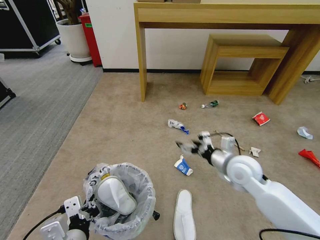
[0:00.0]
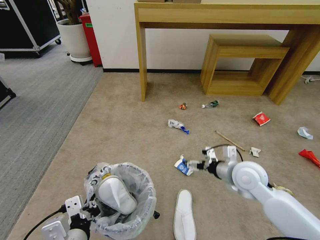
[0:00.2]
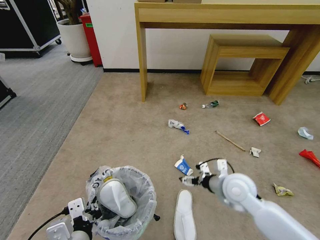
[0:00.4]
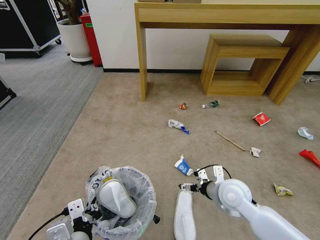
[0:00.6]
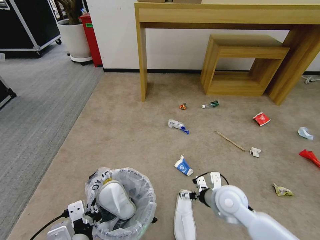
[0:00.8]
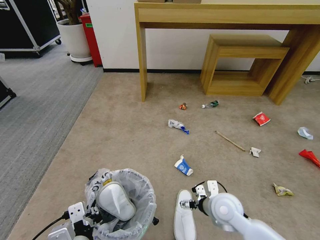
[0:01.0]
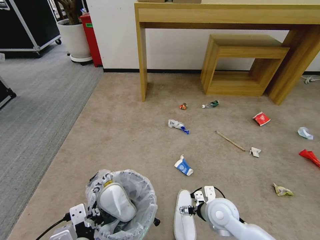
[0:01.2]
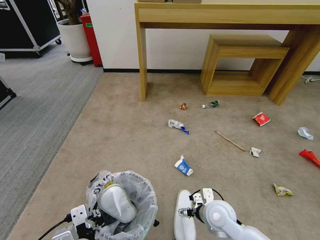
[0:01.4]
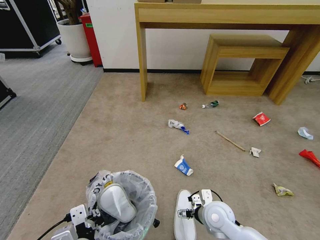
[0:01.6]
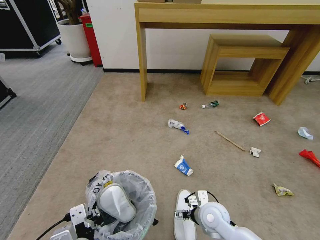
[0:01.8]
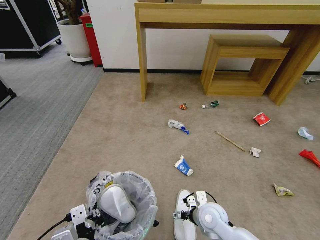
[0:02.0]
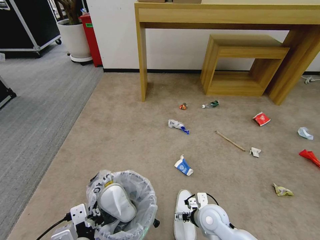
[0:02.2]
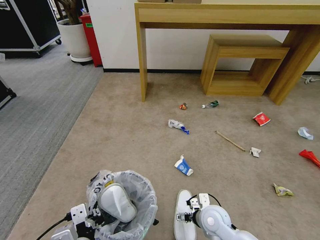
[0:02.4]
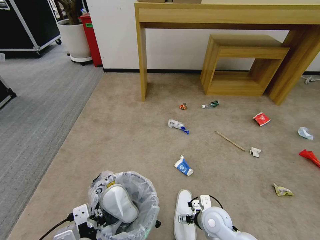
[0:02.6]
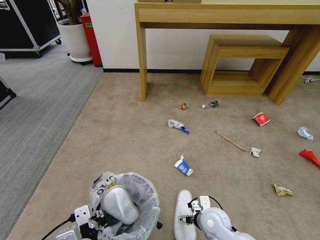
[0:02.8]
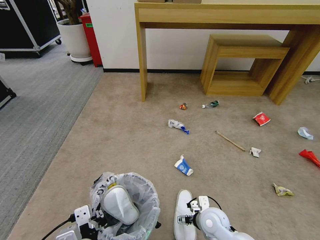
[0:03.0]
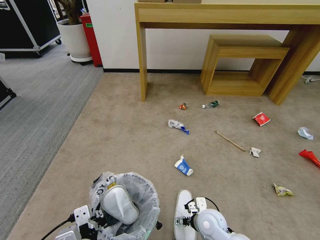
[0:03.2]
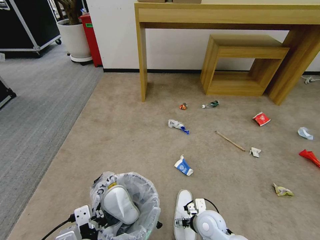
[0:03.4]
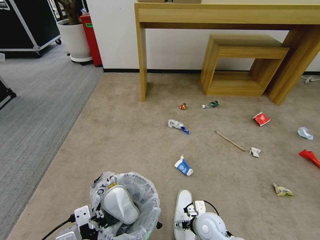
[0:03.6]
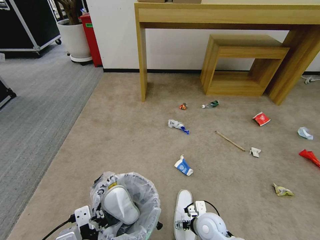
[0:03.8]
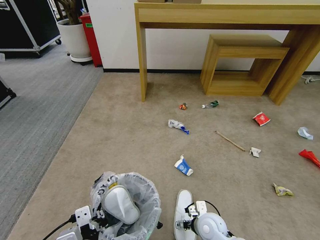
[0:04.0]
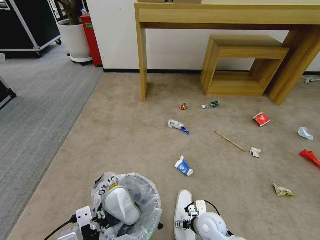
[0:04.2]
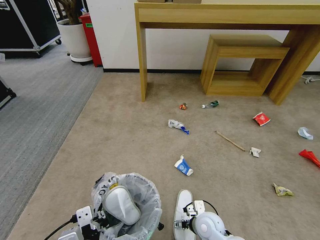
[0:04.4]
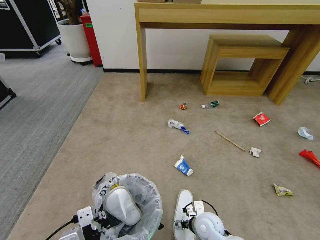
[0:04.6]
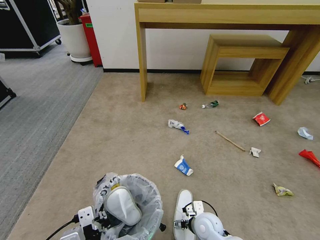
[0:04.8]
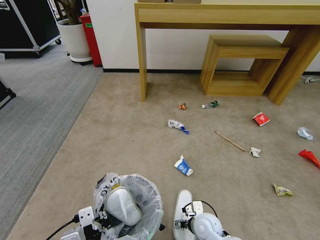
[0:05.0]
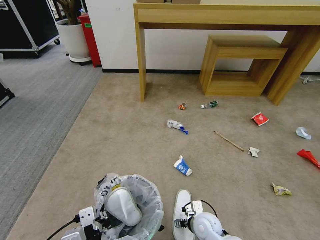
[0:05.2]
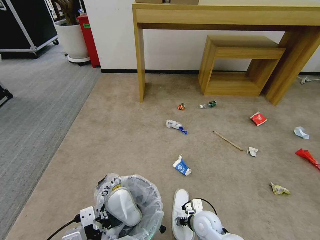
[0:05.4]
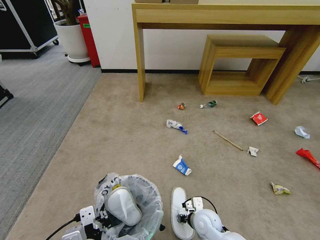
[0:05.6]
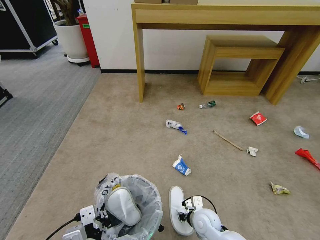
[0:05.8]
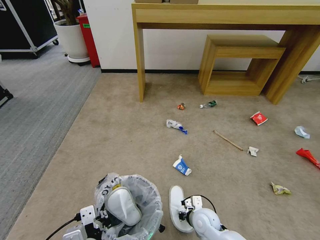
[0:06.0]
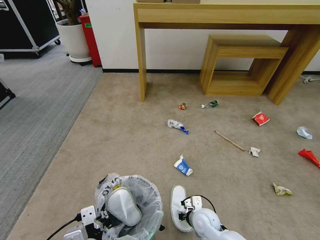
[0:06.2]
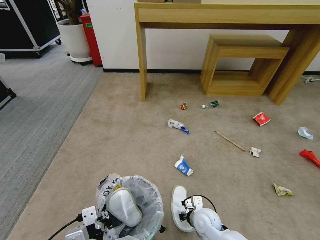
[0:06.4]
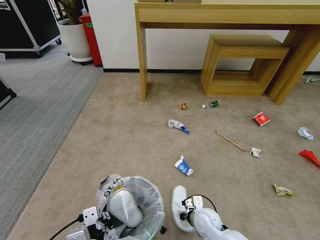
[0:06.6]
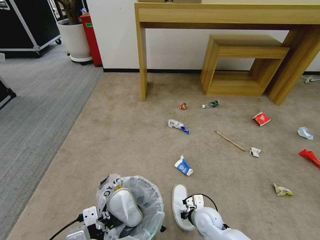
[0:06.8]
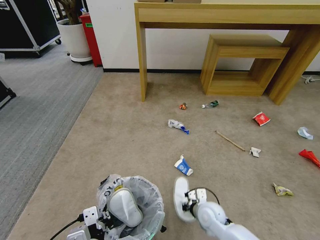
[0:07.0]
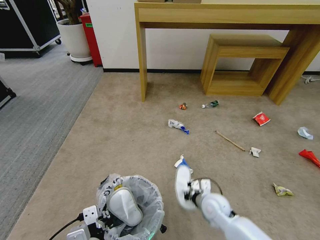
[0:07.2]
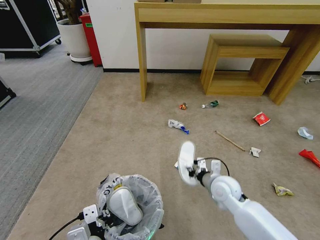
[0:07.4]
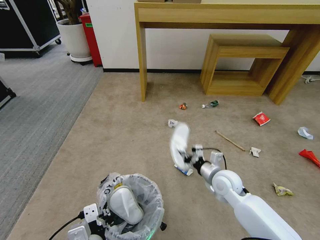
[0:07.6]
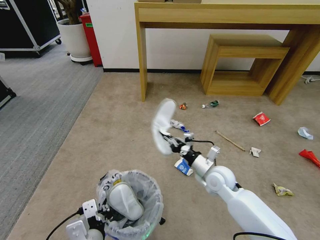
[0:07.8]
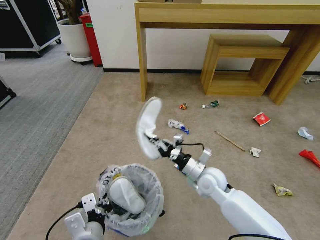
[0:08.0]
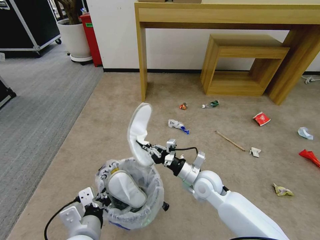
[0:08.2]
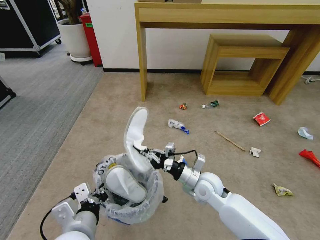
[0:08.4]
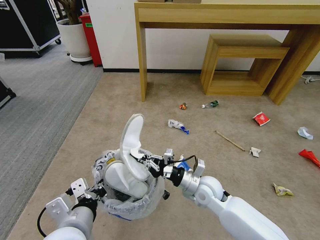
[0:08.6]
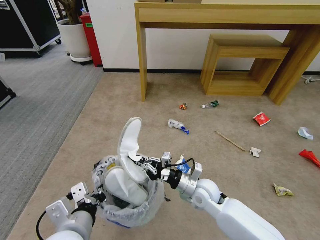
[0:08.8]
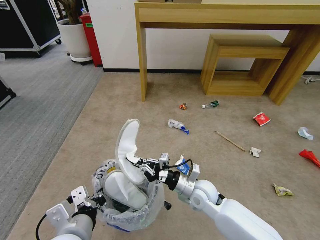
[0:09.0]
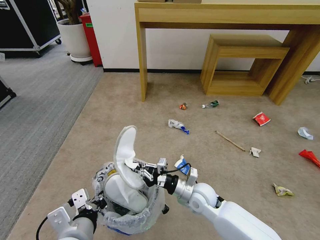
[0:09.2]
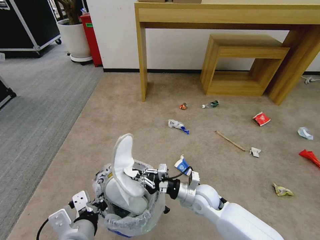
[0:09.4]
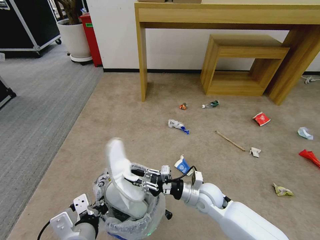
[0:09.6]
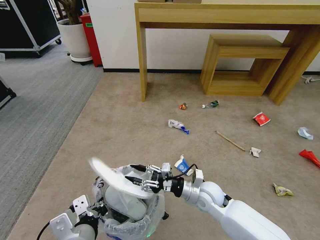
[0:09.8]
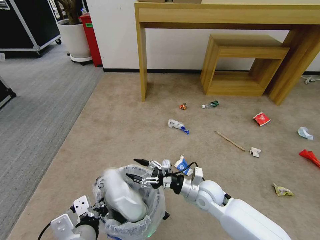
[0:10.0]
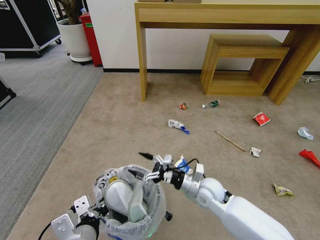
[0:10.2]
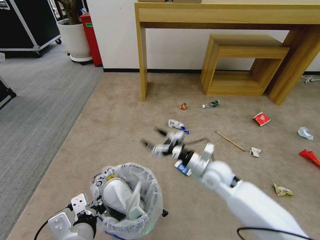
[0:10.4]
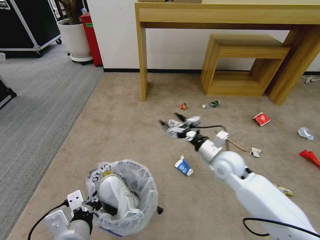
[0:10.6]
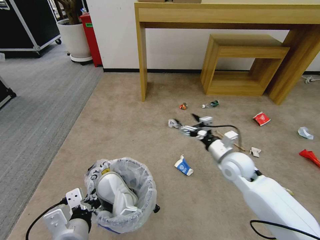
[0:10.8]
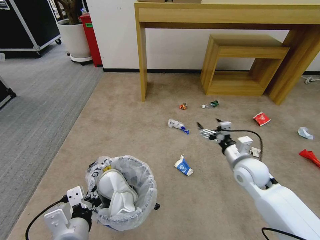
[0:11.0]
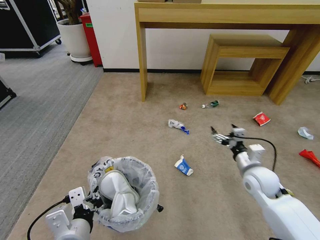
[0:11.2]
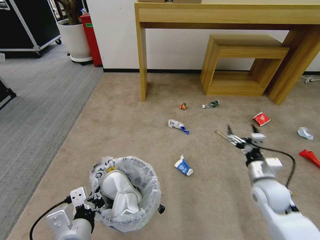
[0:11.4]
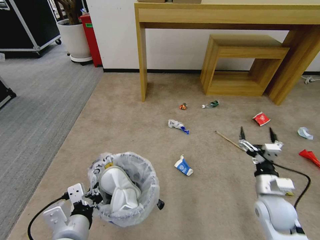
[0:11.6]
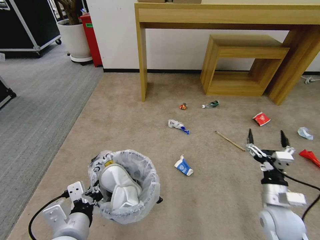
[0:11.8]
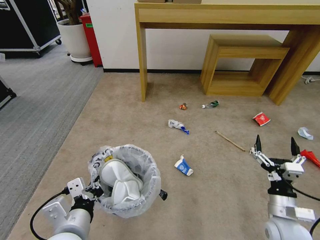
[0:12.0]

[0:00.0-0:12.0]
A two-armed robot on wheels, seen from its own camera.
Task of the whole recording: Pick up the trash bin and place the garbage on the floor into it.
0:00.0 to 0:01.6: The right gripper shifts roughly 20 cm downward, backward and to the left.
0:01.6 to 0:03.0: The grippers stay close to where they were, moving slightly.
0:03.0 to 0:04.4: The grippers make only small movements.
0:04.4 to 0:06.0: The right gripper closes its fingers.
0:06.0 to 0:07.6: The right gripper is displaced upward, forward and to the right by about 15 cm.
0:07.6 to 0:09.0: The right gripper shifts approximately 10 cm to the left. The left gripper travels upward by some 5 cm.
0:09.0 to 0:10.4: The right gripper shifts by approximately 5 cm, and opens up.
0:10.4 to 0:12.0: The right gripper is displaced to the right and backward by approximately 20 cm.

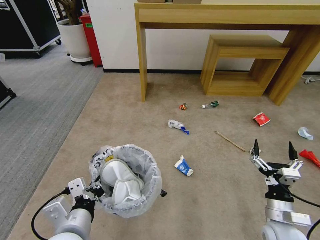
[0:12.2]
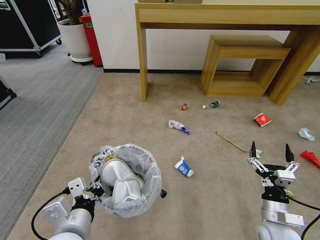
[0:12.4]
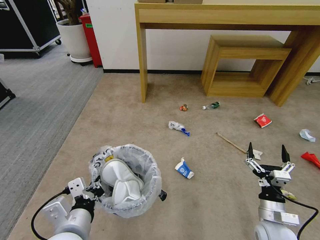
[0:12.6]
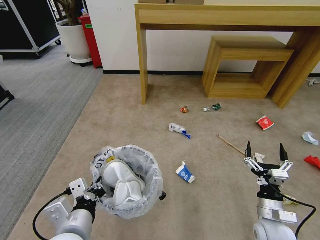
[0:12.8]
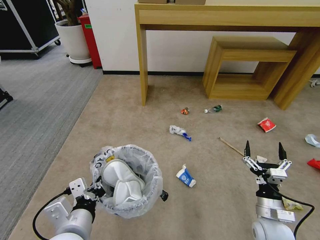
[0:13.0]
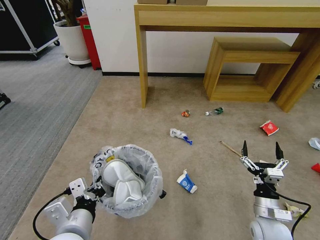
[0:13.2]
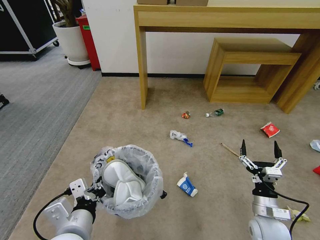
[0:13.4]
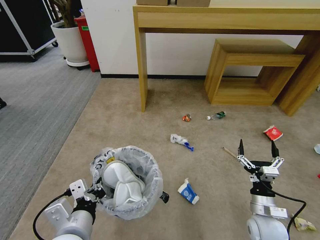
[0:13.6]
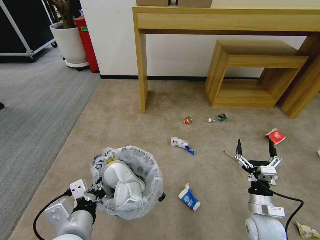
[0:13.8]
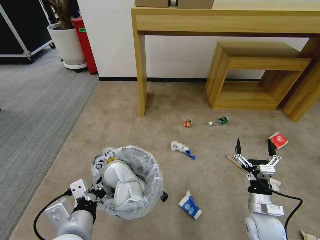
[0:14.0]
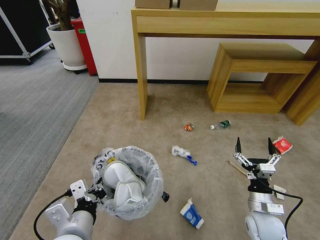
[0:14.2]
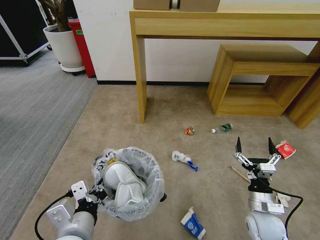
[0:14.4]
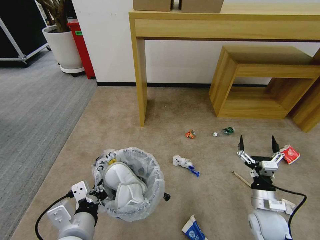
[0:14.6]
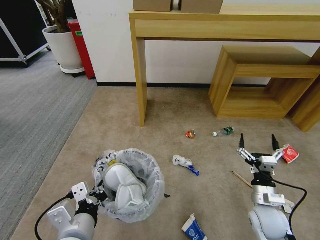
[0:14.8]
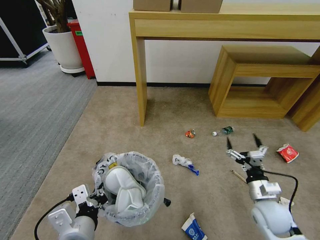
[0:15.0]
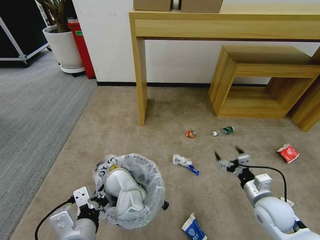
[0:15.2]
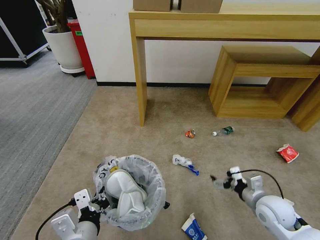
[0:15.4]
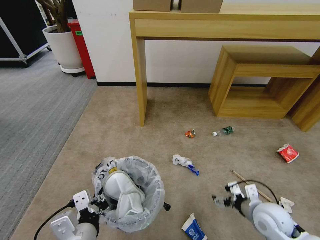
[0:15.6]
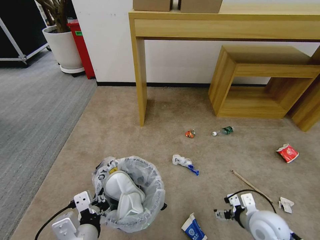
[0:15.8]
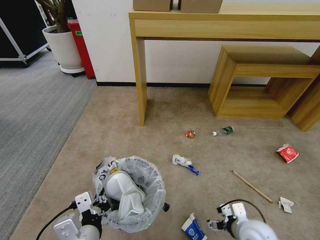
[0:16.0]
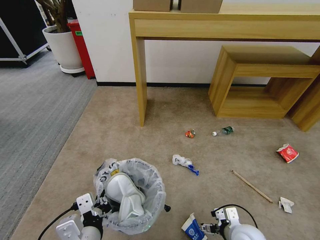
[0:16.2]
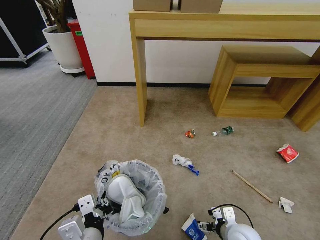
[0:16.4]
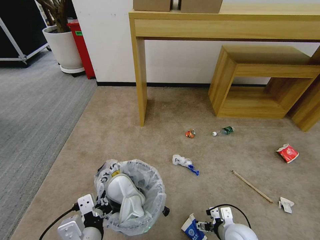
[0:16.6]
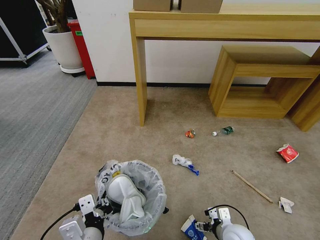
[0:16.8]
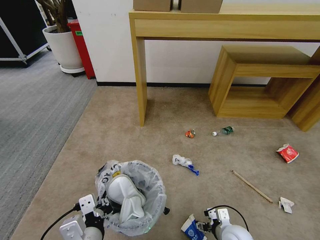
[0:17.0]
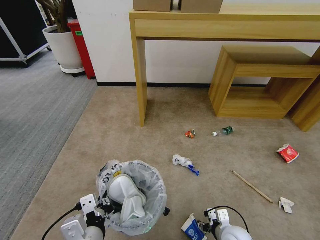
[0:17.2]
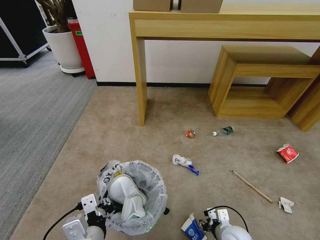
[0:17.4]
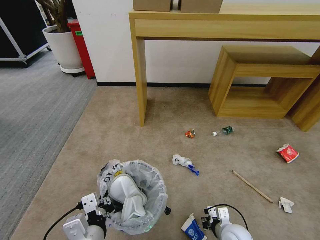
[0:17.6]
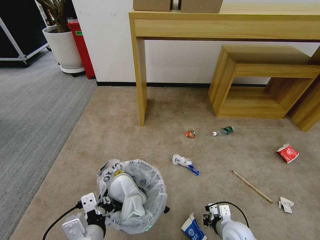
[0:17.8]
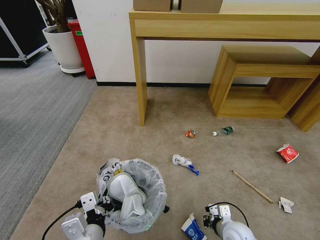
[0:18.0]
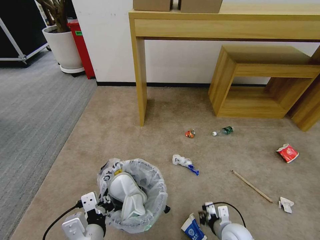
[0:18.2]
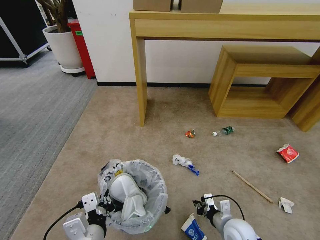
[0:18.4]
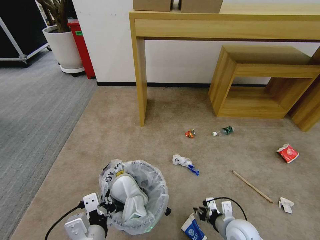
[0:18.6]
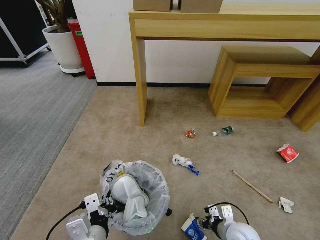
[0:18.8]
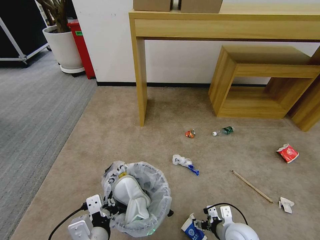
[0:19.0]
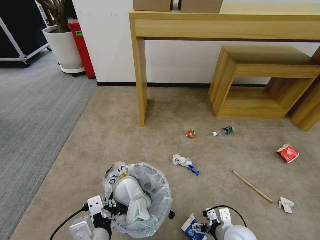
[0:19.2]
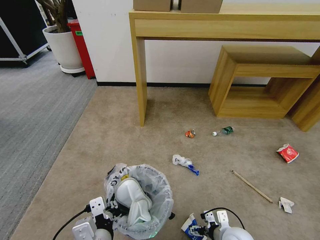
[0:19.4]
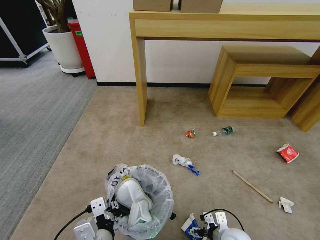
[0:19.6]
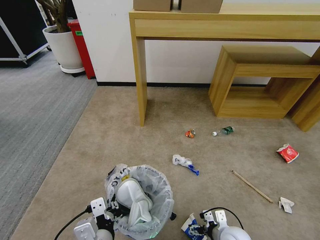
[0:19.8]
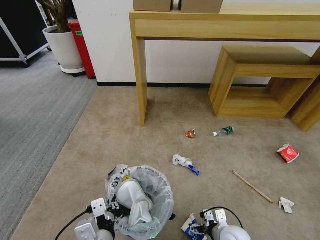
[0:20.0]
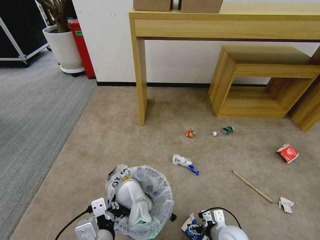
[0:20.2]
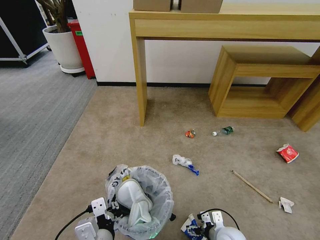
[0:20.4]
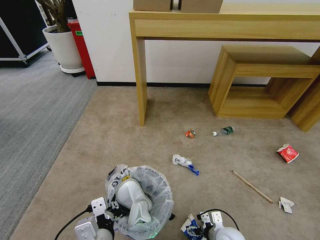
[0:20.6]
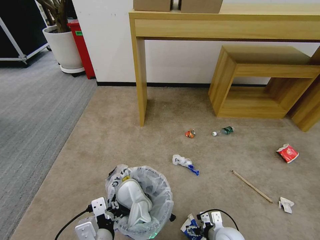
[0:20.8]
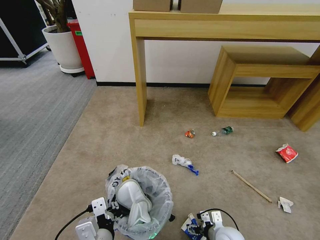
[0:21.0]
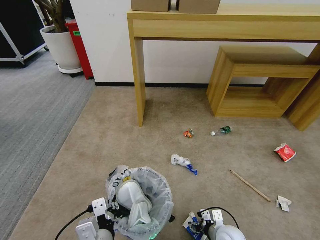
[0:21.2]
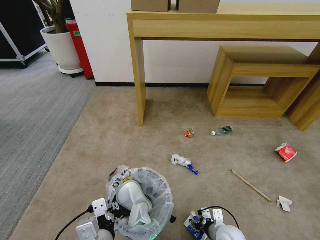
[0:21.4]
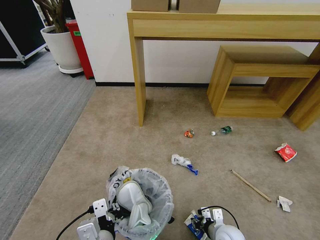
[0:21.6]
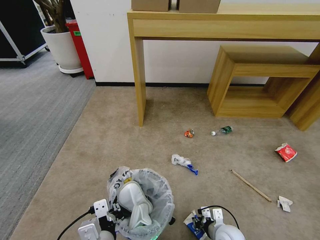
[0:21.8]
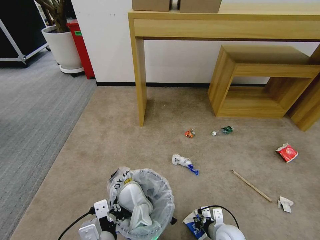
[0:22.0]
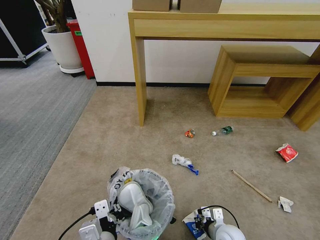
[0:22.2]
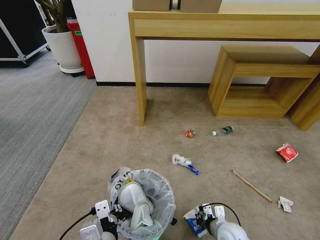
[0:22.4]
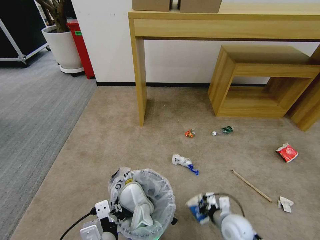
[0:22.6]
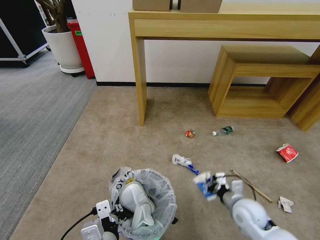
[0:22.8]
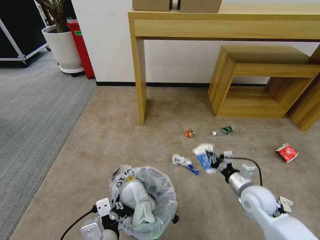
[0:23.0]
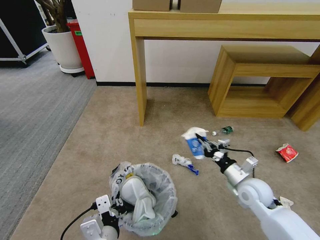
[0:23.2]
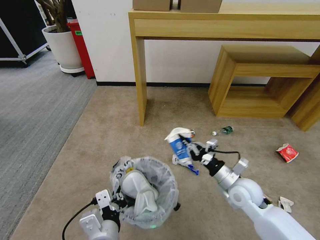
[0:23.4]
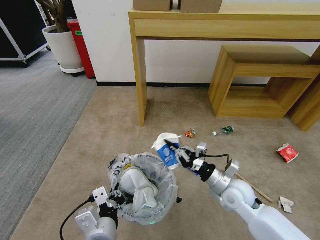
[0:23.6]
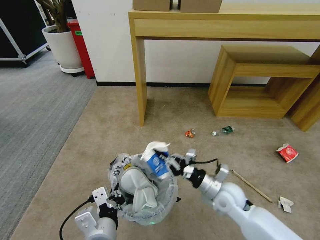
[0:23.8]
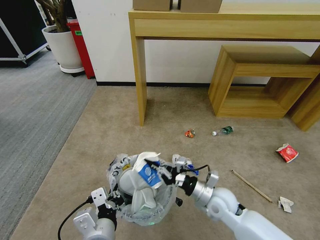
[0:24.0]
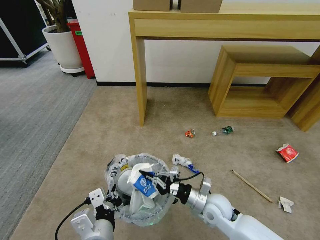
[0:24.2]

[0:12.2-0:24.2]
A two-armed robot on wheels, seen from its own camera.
Task of the whole recording: Pick up the trash bin and place the garbage on the floor into it.
0:12.2 to 0:13.8: The right gripper moves roughly 5 cm.
0:13.8 to 0:15.2: The right gripper shifts by some 5 cm.
0:15.2 to 0:16.6: The right gripper shifts some 15 cm to the left, downward and backward.
0:16.6 to 0:18.2: The right gripper closes.
0:18.2 to 0:19.8: The right gripper opens.
0:19.8 to 0:21.2: The grippers stay close to where they were, moving slightly.
0:21.2 to 0:22.6: The right gripper closes.
0:22.6 to 0:24.2: The right gripper is displaced to the left and upward by roughly 10 cm.
